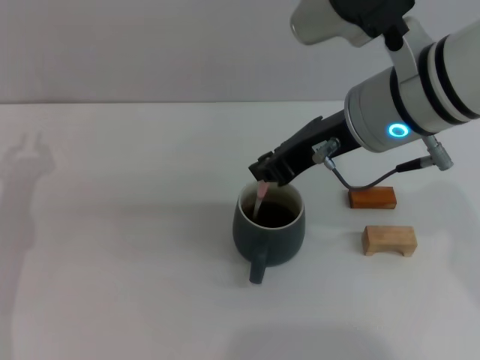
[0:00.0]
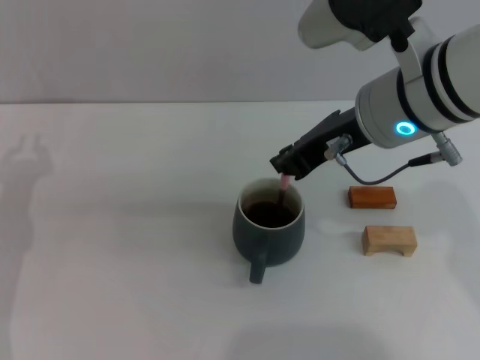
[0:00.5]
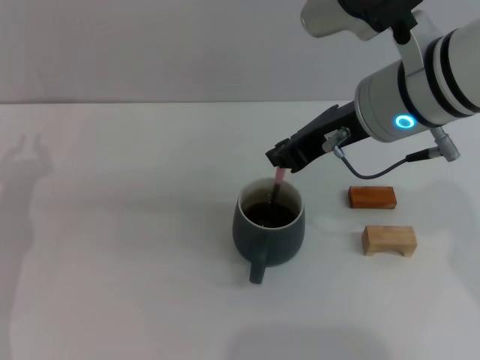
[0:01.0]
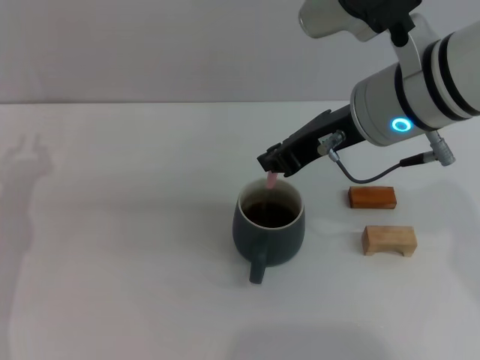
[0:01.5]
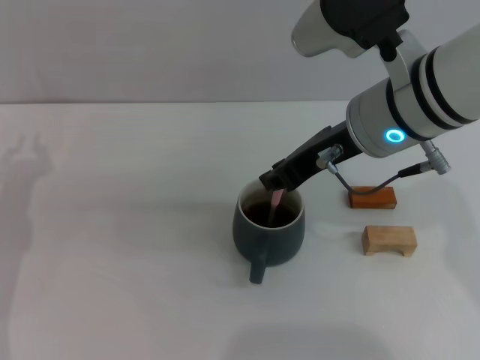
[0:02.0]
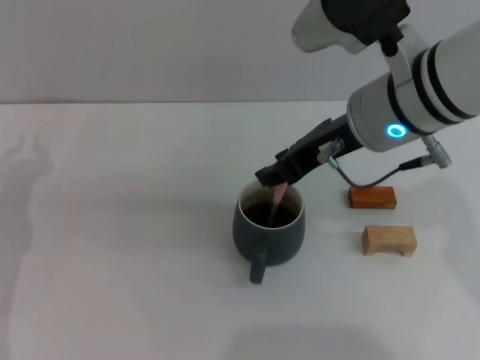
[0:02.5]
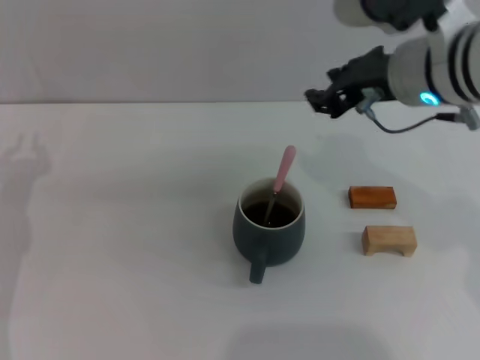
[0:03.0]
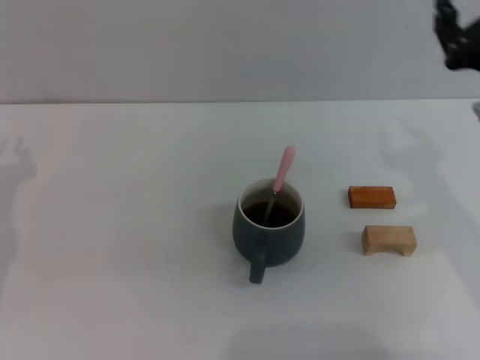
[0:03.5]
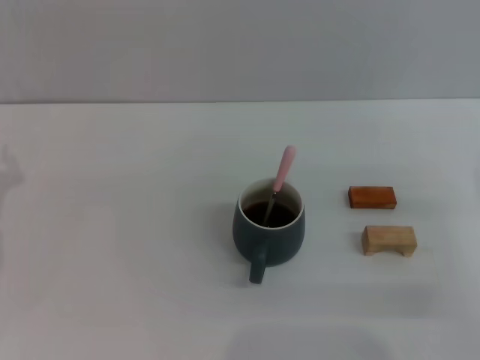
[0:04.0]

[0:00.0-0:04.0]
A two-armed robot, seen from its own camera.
Task of the whole recording: Move the grey cup to the center, lift the pink spoon, stir it three times in the cup, and put the spoon into the cup.
Step, 0:00.0 to 0:02.5: Stir the coffee in the cup with the right gripper.
0:00.0 to 0:02.0: There are only small adjustments of the grippers.
0:02.0 to 0:04.0: The right gripper travels to the right, downward and backward by some 25 cm, and opens up.
